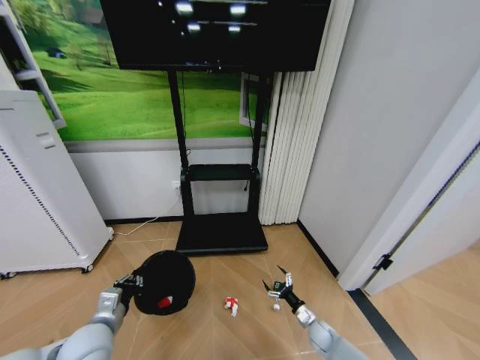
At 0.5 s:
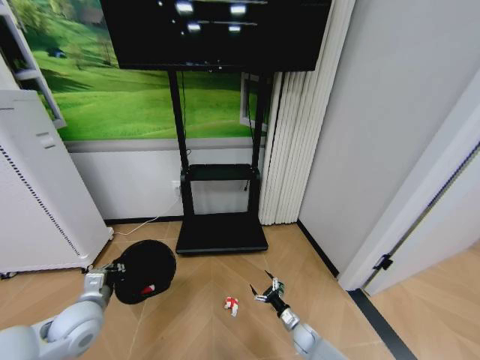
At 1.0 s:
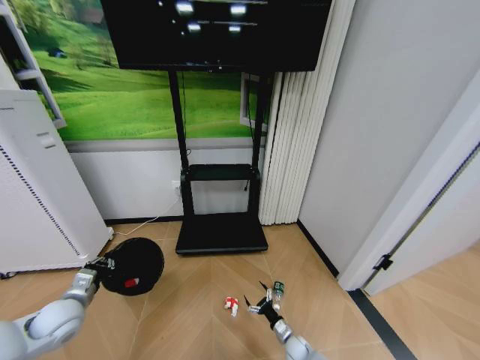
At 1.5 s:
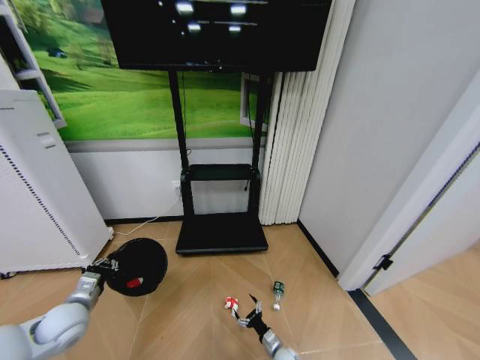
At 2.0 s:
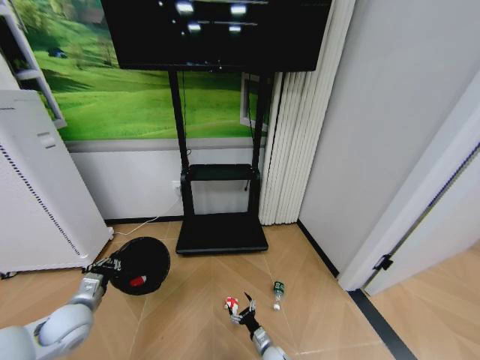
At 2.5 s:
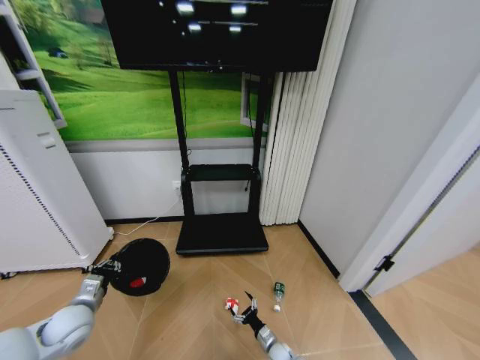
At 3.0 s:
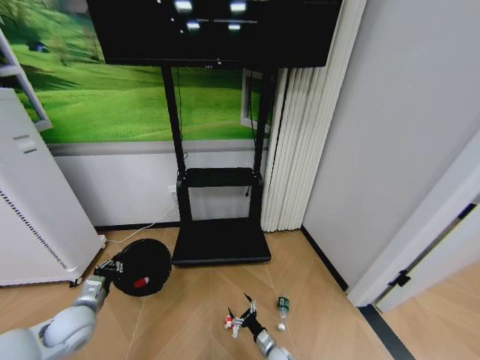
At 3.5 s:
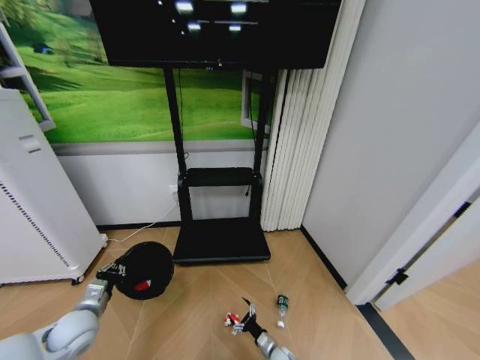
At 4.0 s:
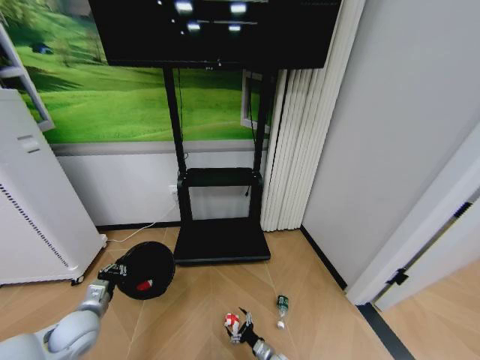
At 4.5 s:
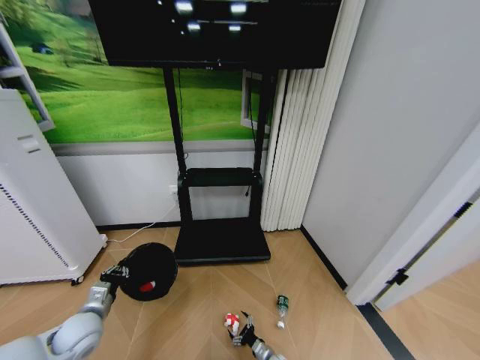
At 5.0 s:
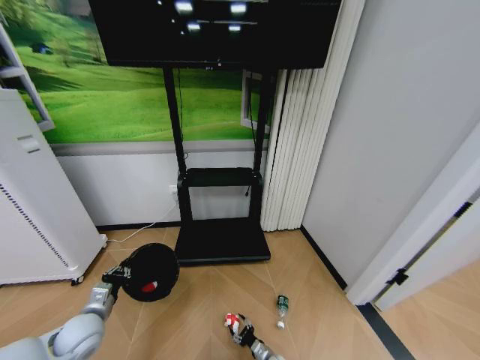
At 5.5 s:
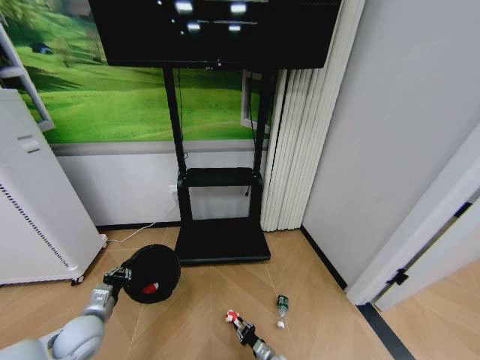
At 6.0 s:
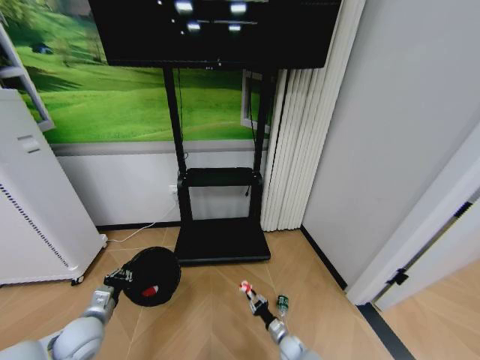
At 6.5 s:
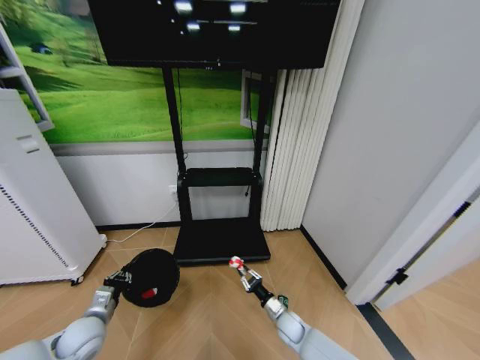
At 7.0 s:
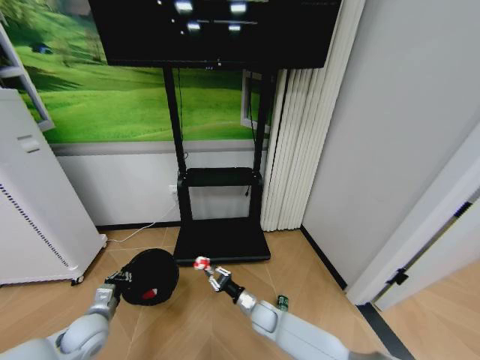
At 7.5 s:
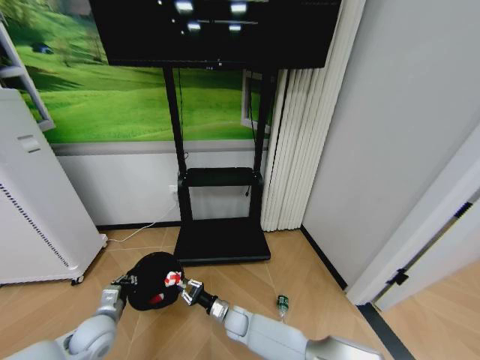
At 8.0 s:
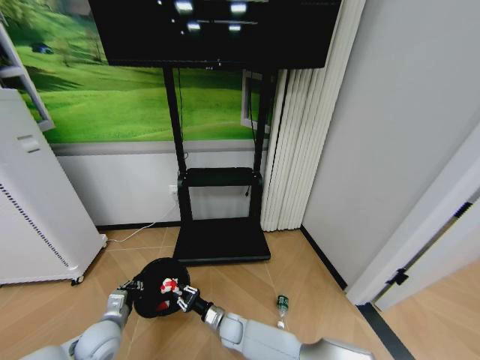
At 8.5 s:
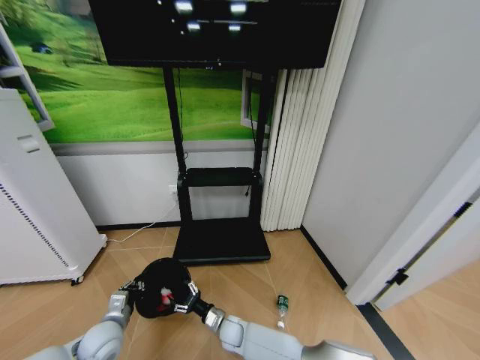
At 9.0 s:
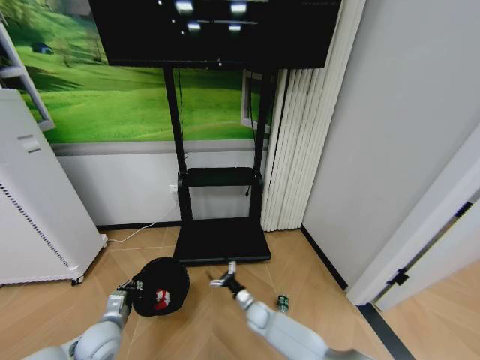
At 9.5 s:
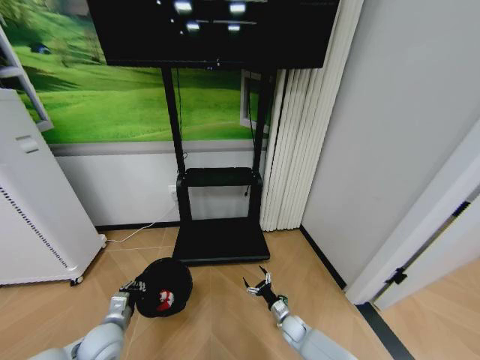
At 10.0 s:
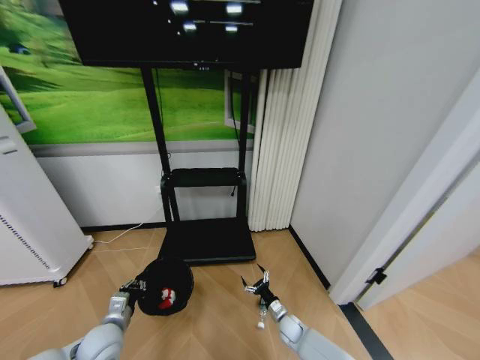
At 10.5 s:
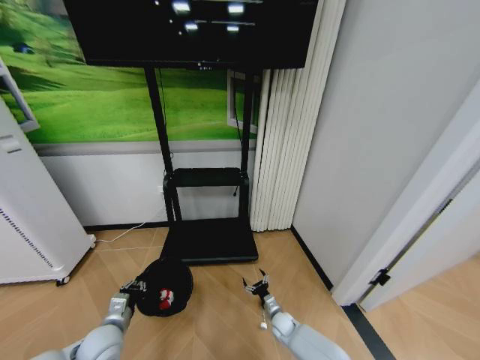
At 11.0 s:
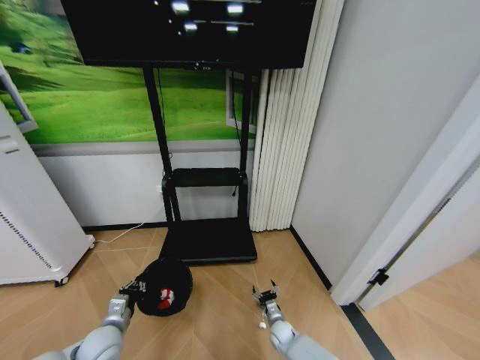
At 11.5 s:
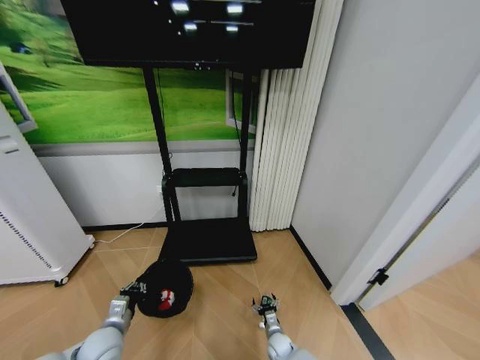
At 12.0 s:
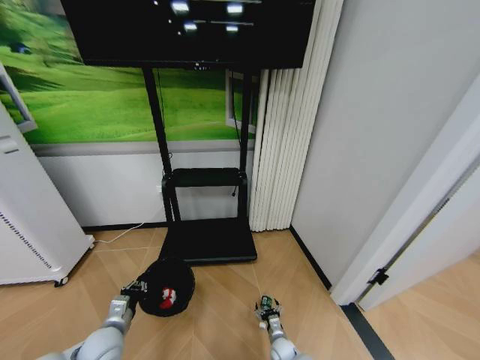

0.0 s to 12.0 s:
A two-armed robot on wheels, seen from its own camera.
Task of the whole recording: Pick up the trash bin and place the garbage on the floor into it.
0.0 to 2.0 s: The right gripper goes some 20 cm to the left and downward. Meanwhile the left gripper travels to the left and forward by roughly 10 cm.
4.0 to 6.0 s: The right gripper shifts by some 5 cm, and closes up.
6.0 to 8.0 s: The right gripper is displaced to the left and upward by roughly 25 cm.
8.0 to 10.0 s: The right gripper moves to the right, approximately 25 cm, and opens.
10.0 to 12.0 s: The right gripper travels downward and backward by roughly 10 cm.

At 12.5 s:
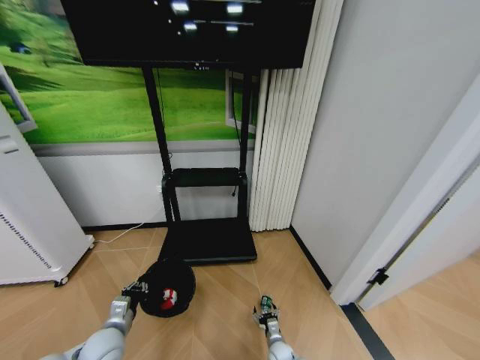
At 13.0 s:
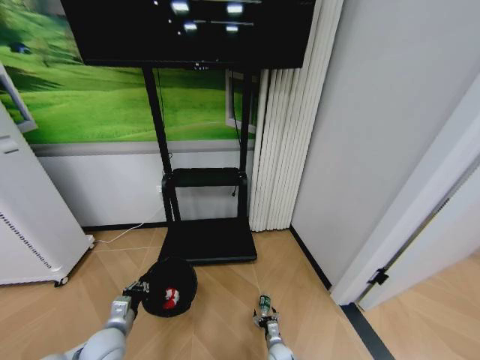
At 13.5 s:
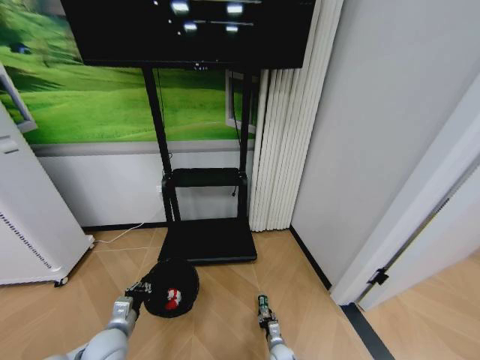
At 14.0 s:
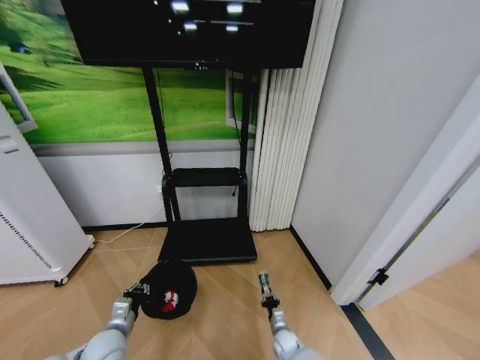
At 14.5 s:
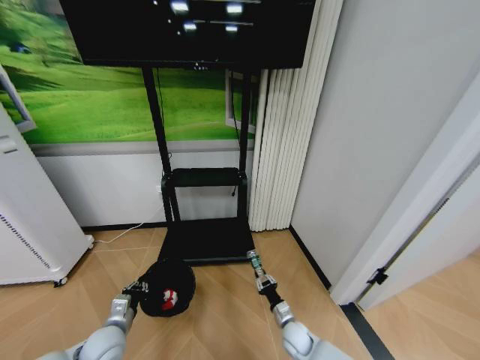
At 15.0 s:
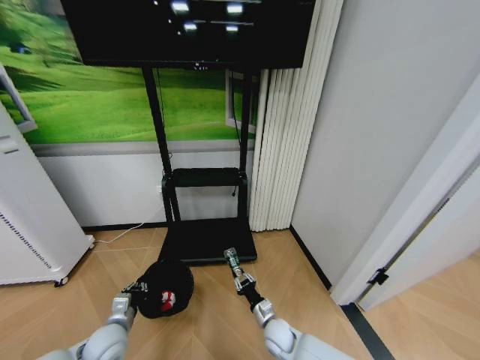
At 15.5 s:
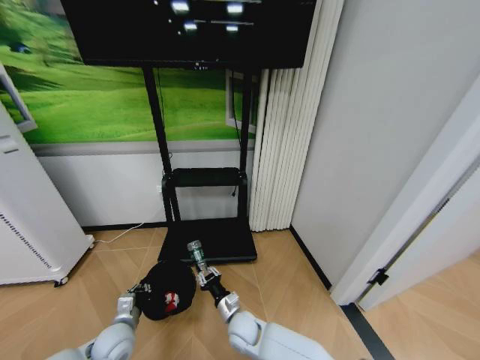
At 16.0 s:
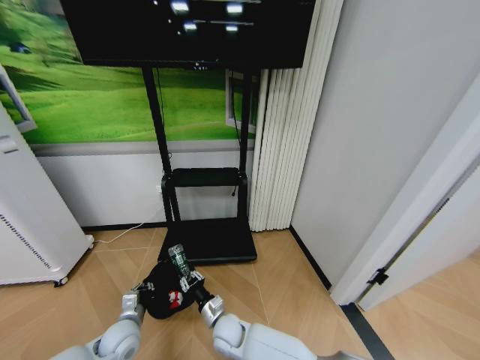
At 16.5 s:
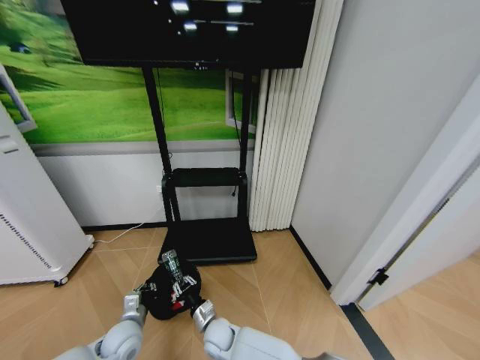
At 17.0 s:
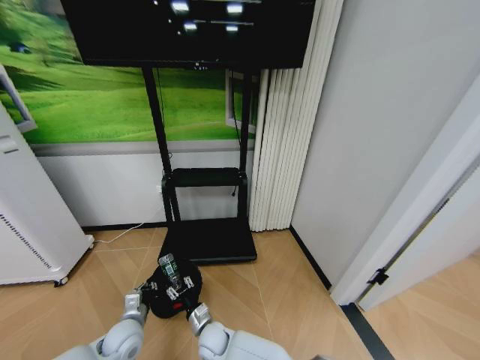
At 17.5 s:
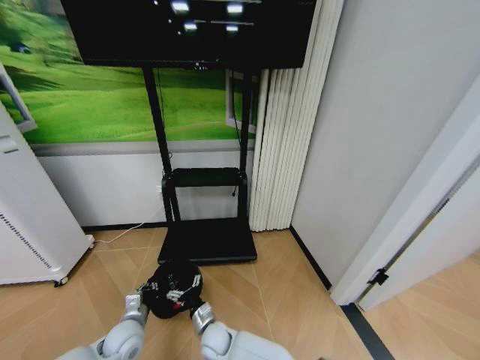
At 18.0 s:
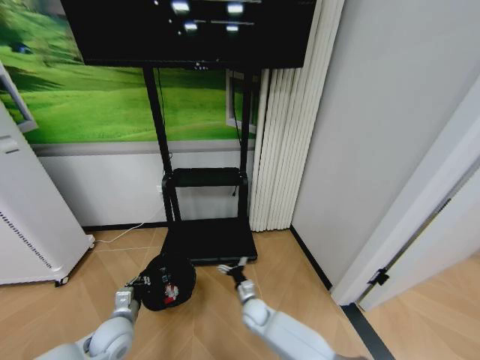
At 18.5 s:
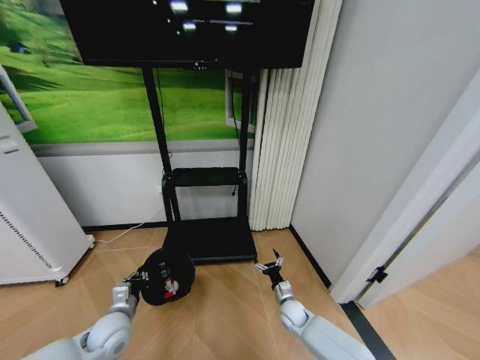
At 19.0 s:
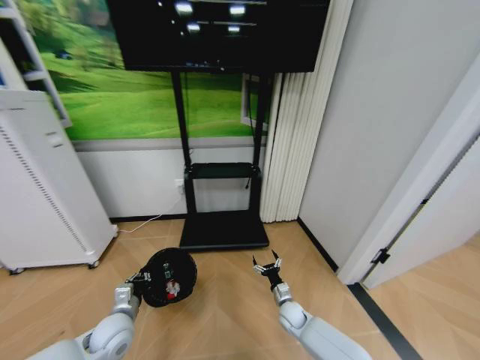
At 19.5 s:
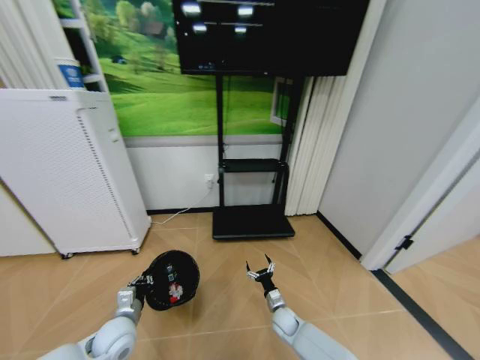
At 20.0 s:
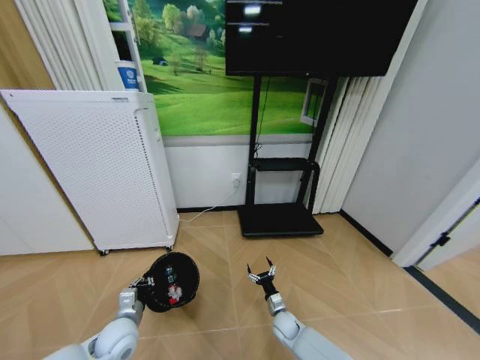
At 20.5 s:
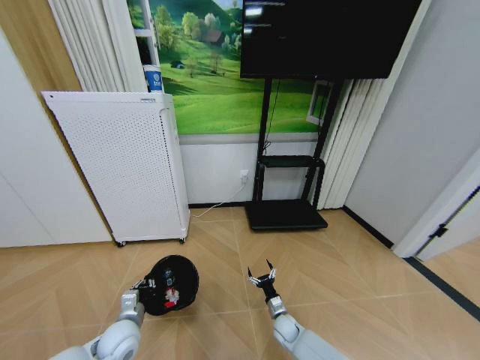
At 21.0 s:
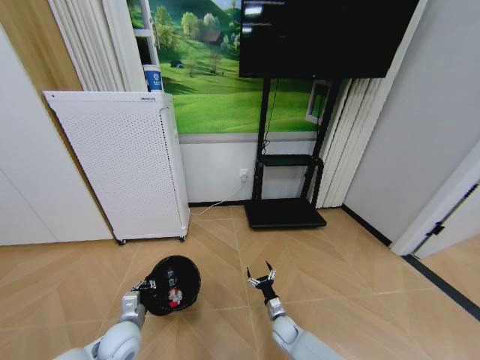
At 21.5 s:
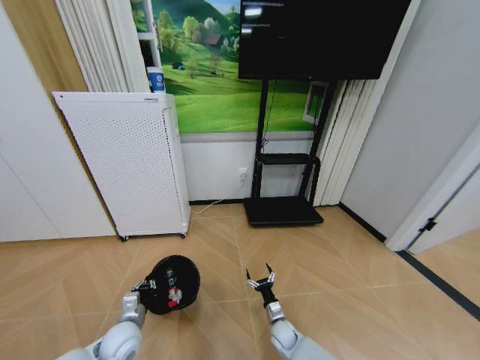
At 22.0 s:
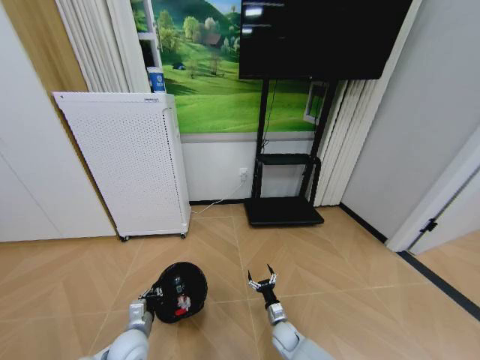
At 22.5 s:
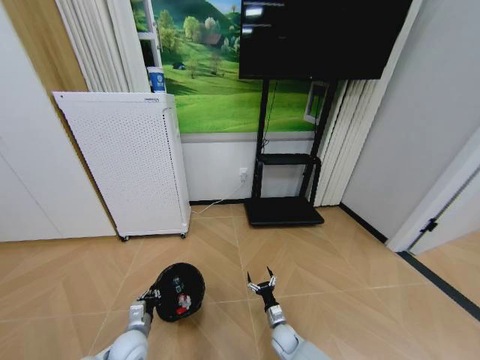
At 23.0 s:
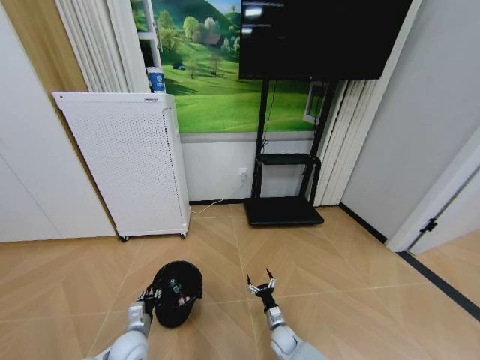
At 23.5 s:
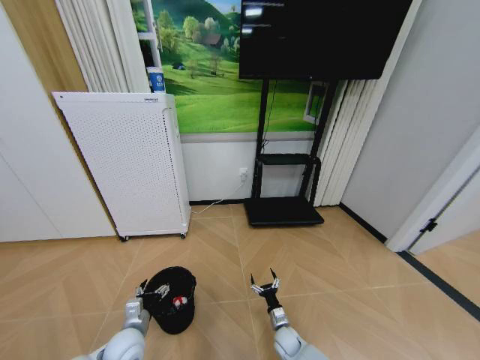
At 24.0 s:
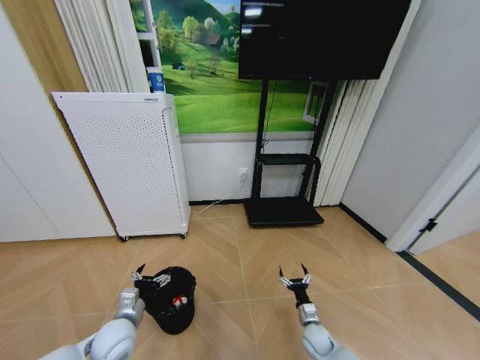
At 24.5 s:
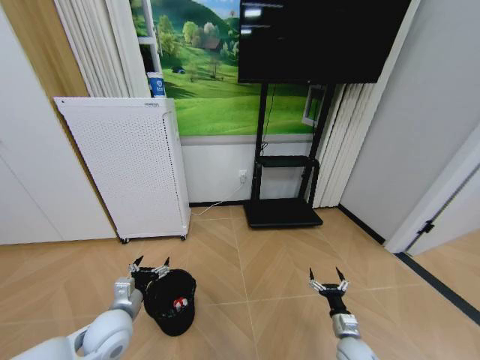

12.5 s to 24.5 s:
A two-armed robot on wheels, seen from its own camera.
Task of the whole recording: Pick up the trash bin and place the garbage on the floor into it.
12.5 to 14.5 s: The right gripper heads upward, covering about 10 cm, and closes.
14.5 to 16.5 s: The right gripper shifts roughly 30 cm to the left.
16.5 to 18.5 s: The right gripper heads to the right, covering approximately 30 cm, and opens up.
18.5 to 20.5 s: The right gripper goes about 5 cm downward.
20.5 to 22.5 s: The left gripper is displaced downward by some 5 cm.
22.5 to 24.5 s: The right gripper moves to the right and upward, approximately 20 cm, while the left gripper moves upward, about 15 cm, and opens.

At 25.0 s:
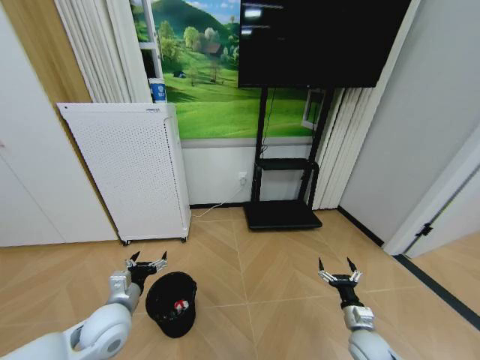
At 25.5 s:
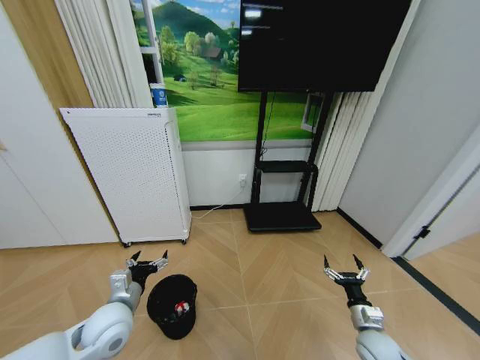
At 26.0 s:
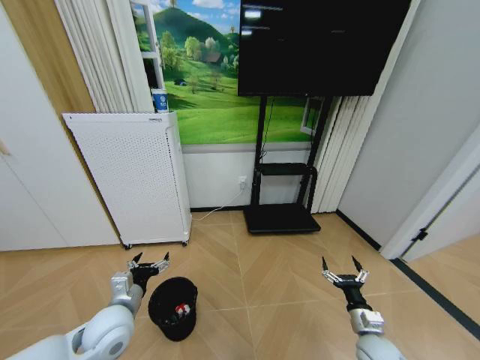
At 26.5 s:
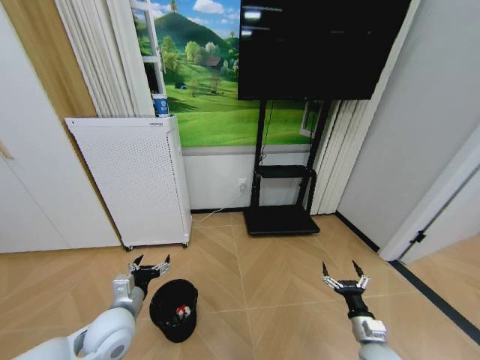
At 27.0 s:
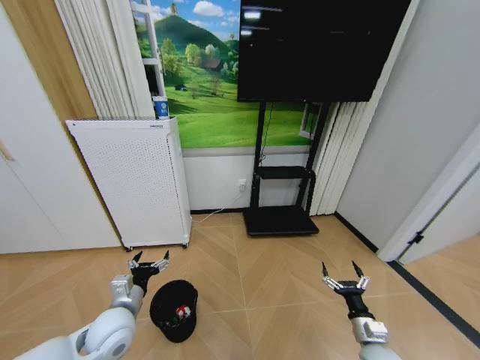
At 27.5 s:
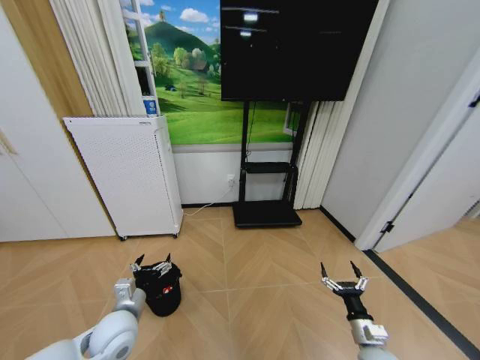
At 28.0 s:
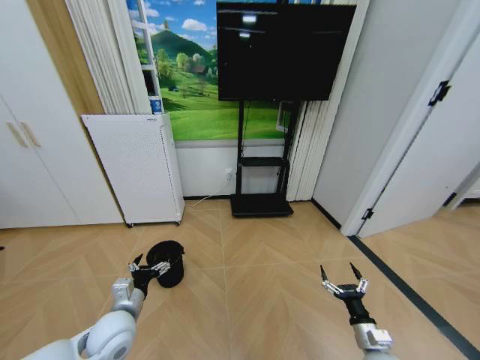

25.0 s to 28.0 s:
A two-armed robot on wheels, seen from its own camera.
Task of the whole recording: Pick up the trash bin and place the garbage on the floor into it.
25.0 to 26.5 s: The grippers make only small movements.
